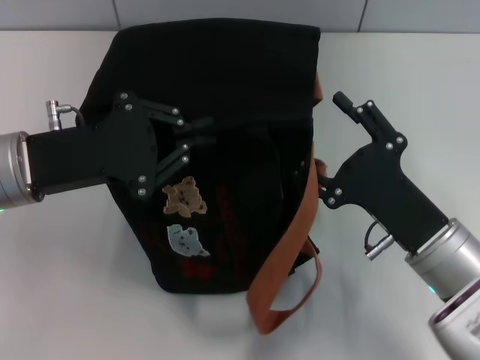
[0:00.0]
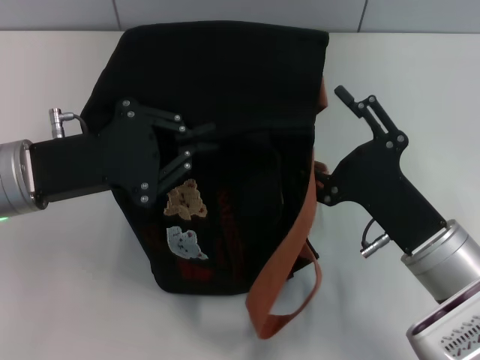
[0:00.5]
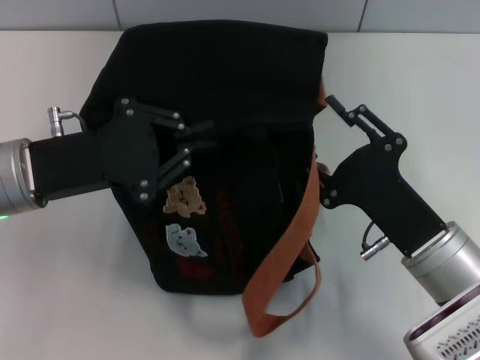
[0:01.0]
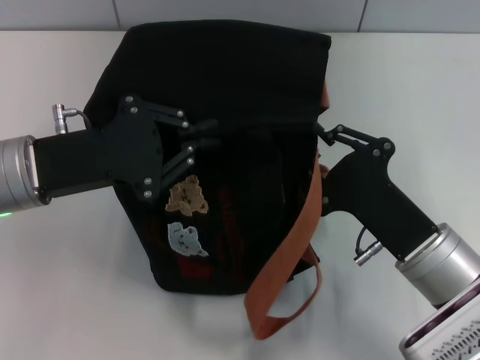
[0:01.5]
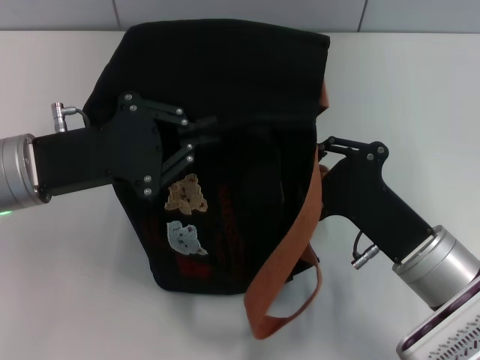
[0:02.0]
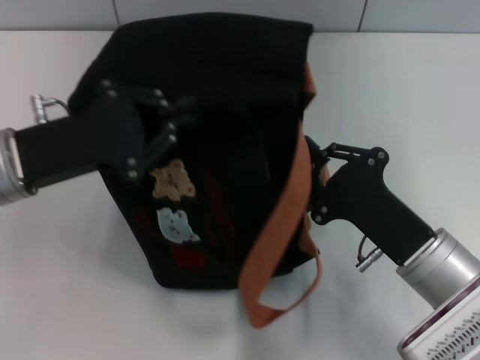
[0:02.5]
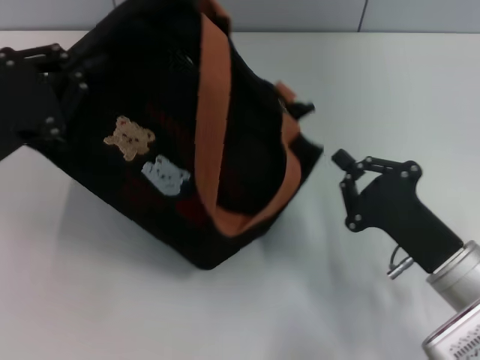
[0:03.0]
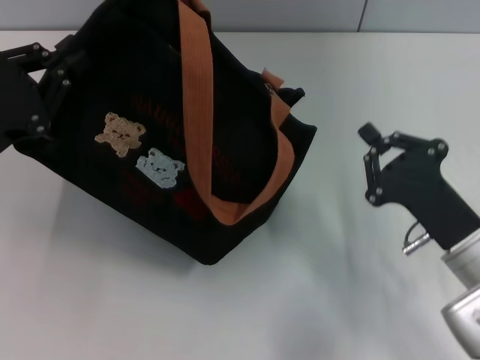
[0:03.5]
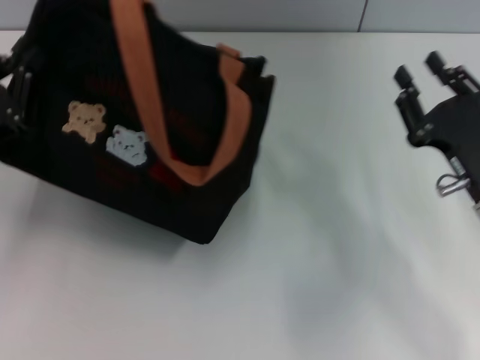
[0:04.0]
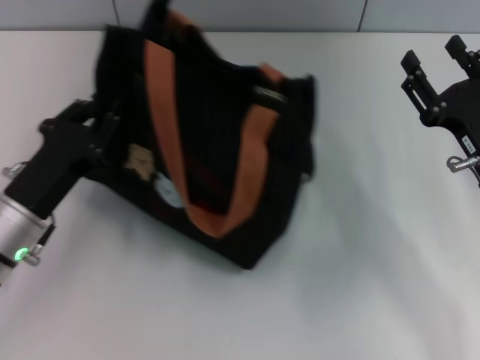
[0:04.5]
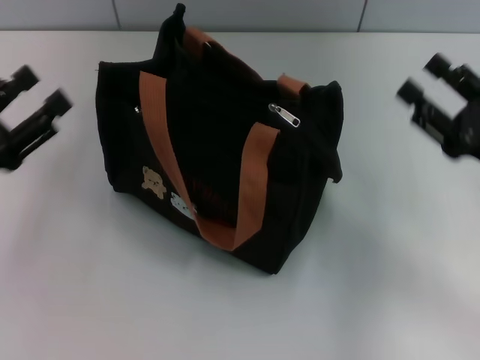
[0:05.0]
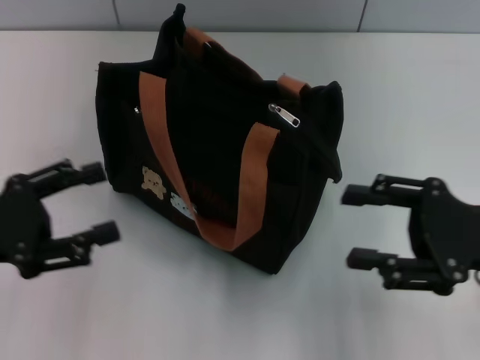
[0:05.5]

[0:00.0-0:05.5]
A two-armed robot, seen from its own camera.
Step, 0:00.0 to 0:02.5: Pull open the zipper with your right hand.
Step, 0:03.0 to 0:04.5: Grab the bag with your left hand.
0:00.0 to 0:02.0: The right gripper closes up.
0:02.0 to 0:03.5: The left gripper shifts some 5 cm to the left, while the right gripper shifts by roughly 5 cm.
0:03.5 to 0:05.5: The left gripper reaches some 5 cm to the right, then returns, and opens its fingers. Meanwhile the right gripper goes roughly 5 cm upward, and opens.

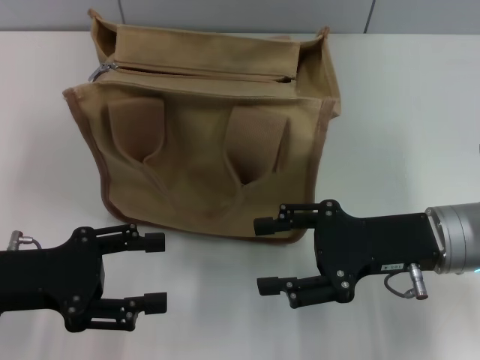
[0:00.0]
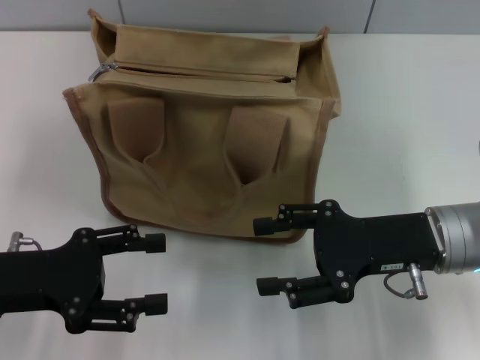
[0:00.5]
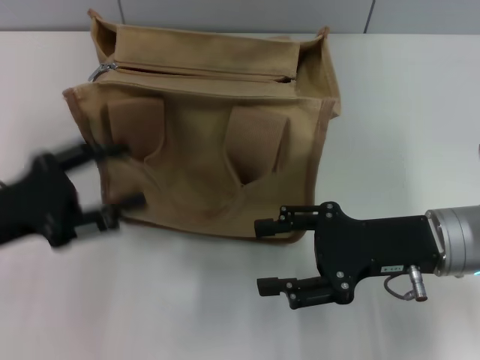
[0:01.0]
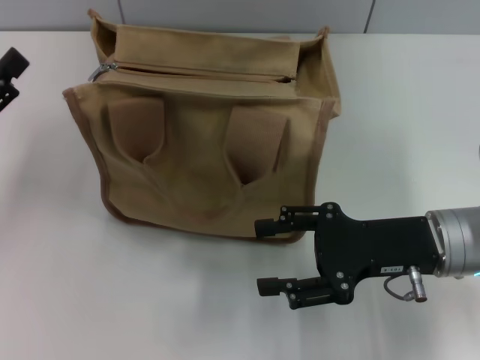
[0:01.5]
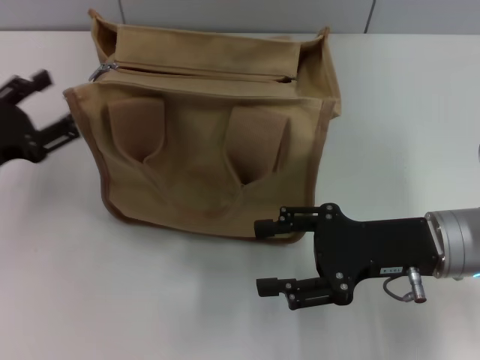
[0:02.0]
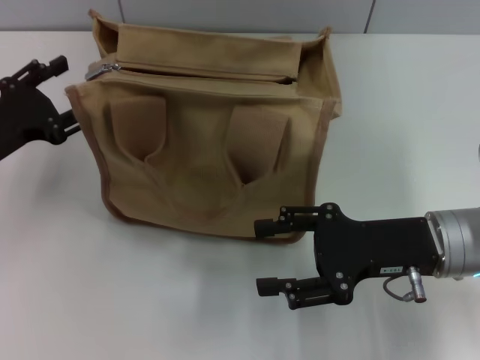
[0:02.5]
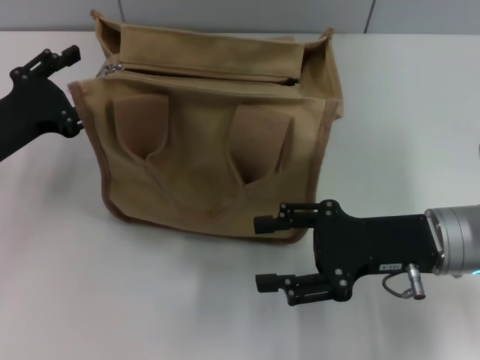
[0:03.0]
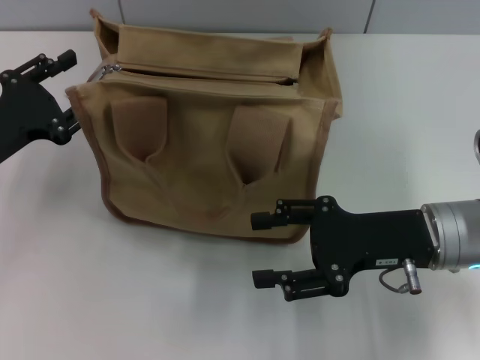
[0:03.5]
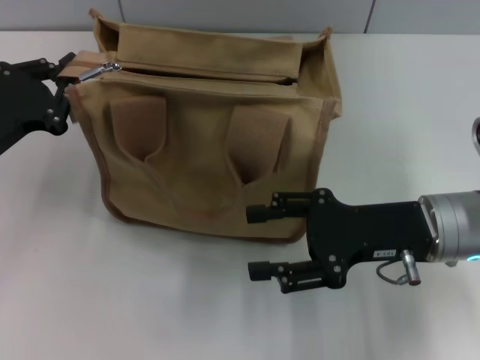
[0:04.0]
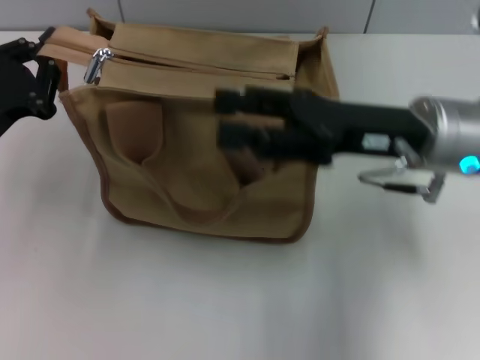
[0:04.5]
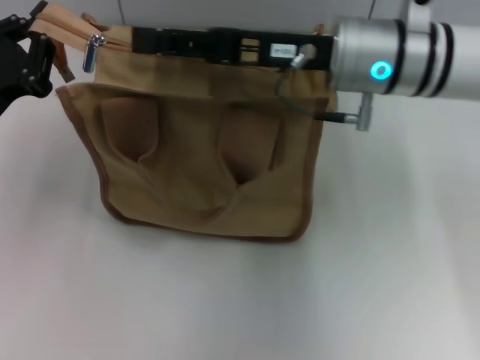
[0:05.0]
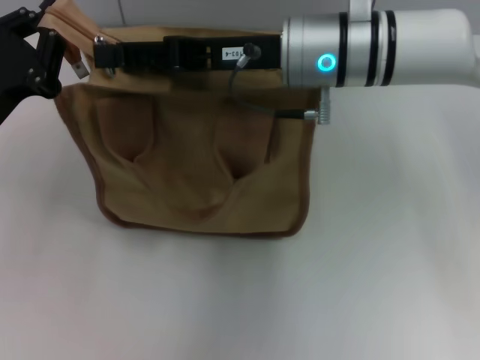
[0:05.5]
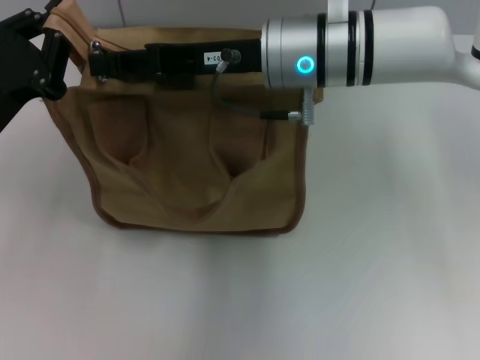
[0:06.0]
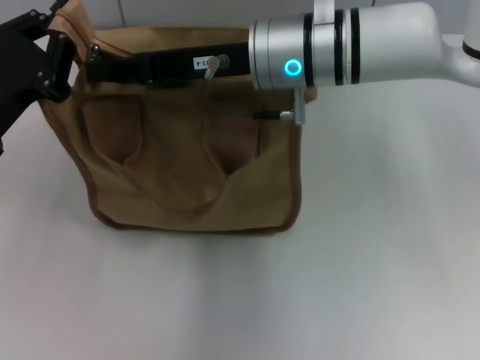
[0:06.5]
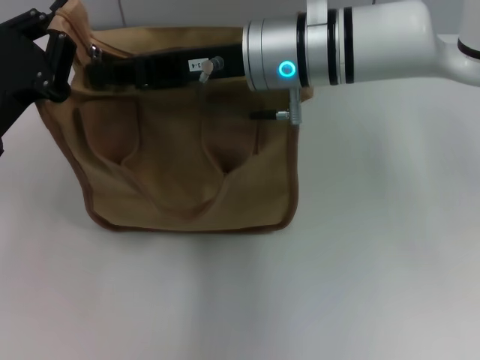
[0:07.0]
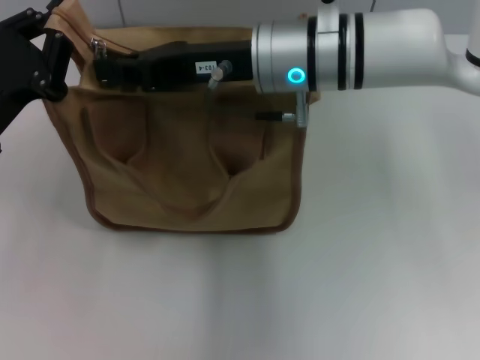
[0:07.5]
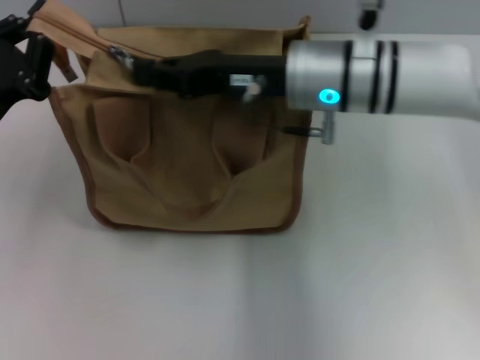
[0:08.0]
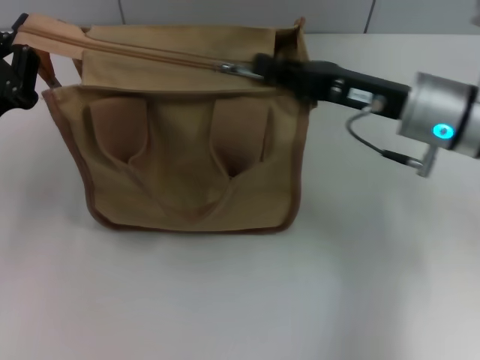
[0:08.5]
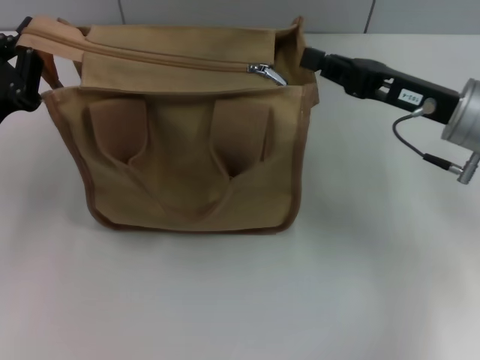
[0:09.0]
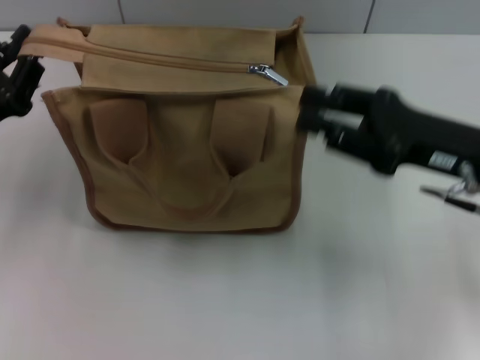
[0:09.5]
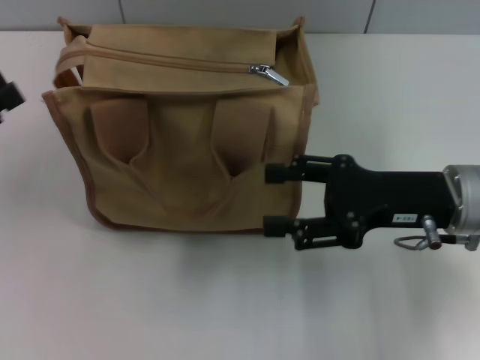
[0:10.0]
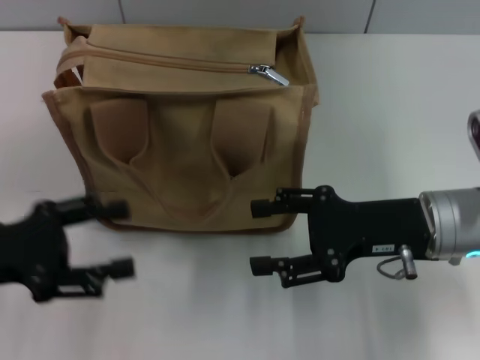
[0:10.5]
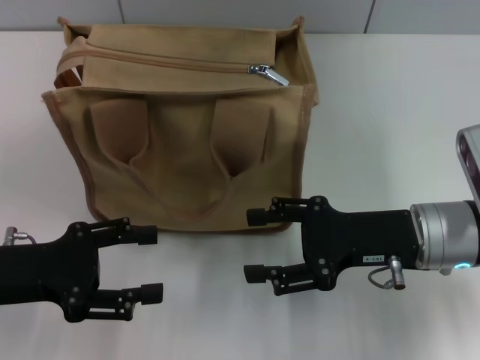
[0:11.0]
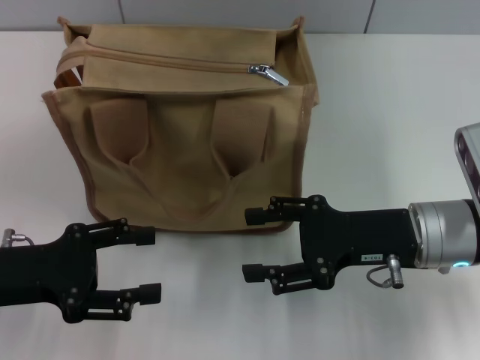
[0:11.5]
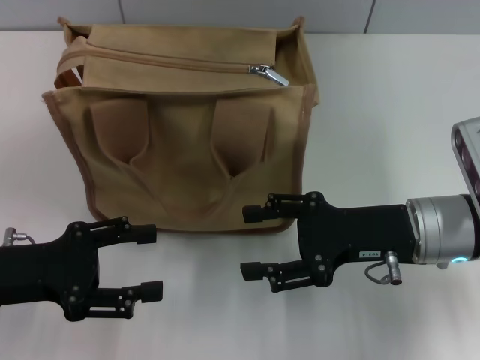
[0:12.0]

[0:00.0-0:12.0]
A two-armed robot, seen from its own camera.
Step, 0:00.0 to 0:08.5: Pull up the zipper with your right hand.
Step, 0:09.0 to 0:09.5: Grab the zipper with your left hand.
0:00.0 to 0:02.0: The left gripper shifts roughly 5 cm forward.
0:02.0 to 0:04.0: The left gripper closes.
0:04.0 to 0:06.0: The left gripper closes. The right gripper heads to the left, forward and upward, covering approximately 20 cm.
0:06.0 to 0:08.0: The right gripper closes.
0:08.0 to 0:10.0: The left gripper is displaced to the left by approximately 10 cm, and opens its fingers. Meanwhile the right gripper moves to the right and backward, roughly 15 cm, and opens up.
0:10.0 to 0:12.0: The left gripper is displaced to the right by roughly 10 cm, and opens up.

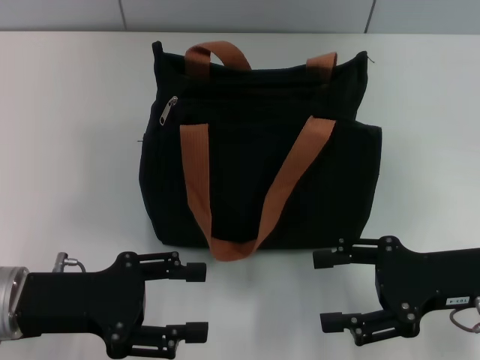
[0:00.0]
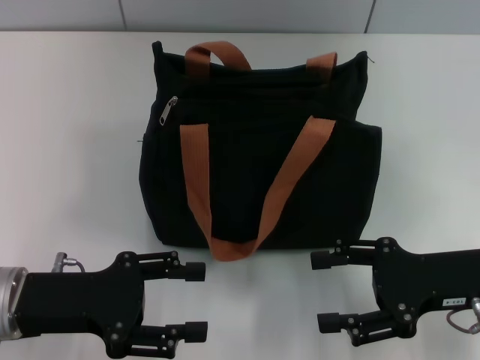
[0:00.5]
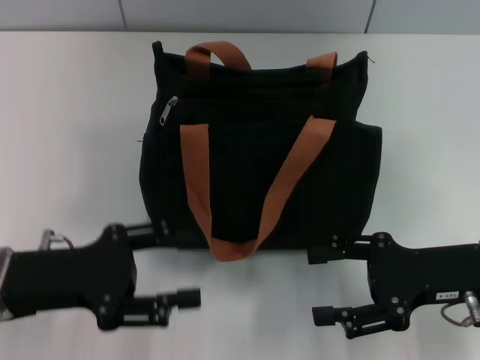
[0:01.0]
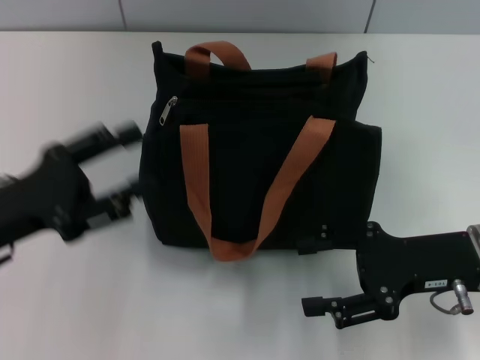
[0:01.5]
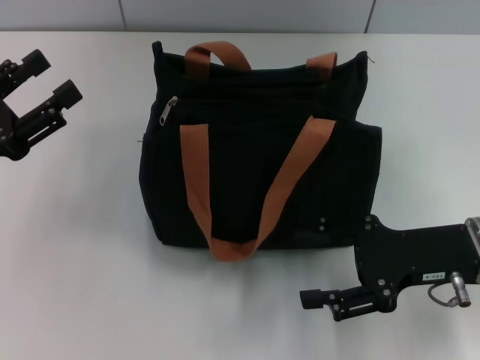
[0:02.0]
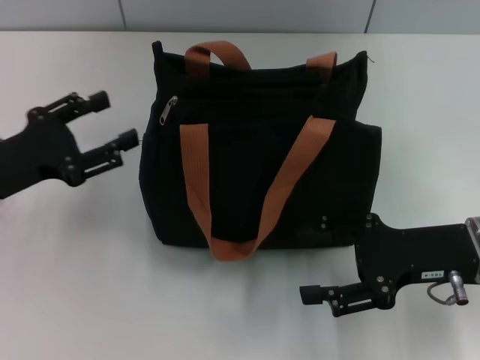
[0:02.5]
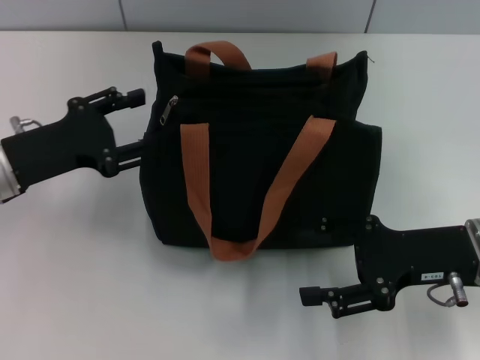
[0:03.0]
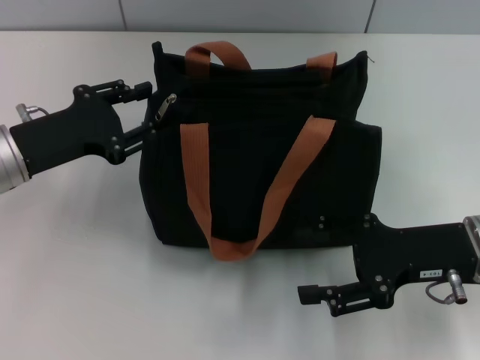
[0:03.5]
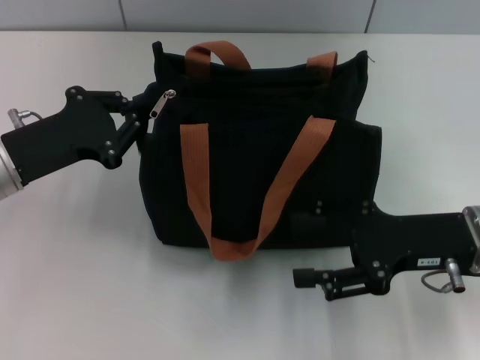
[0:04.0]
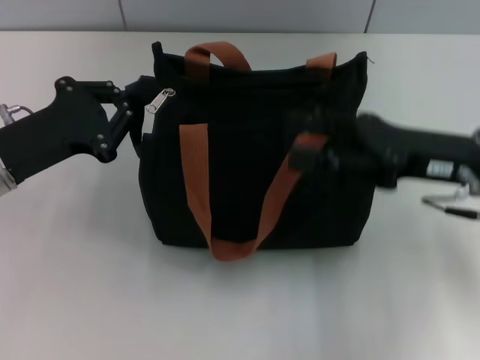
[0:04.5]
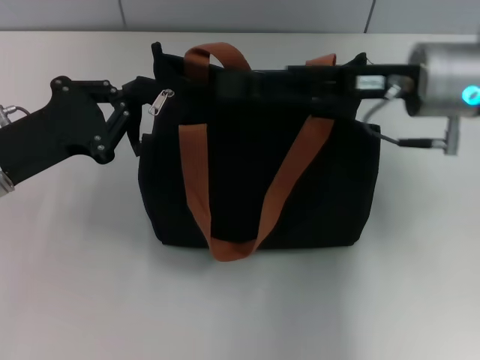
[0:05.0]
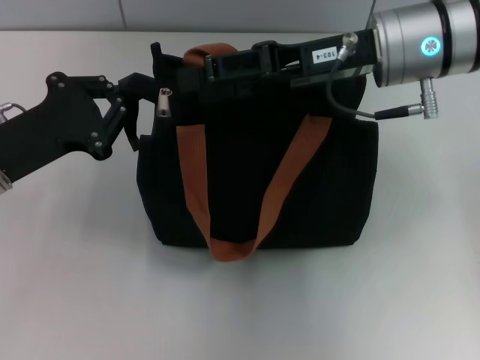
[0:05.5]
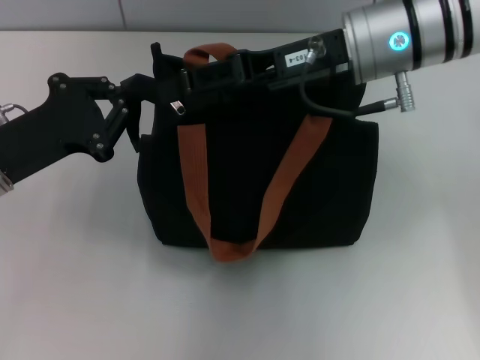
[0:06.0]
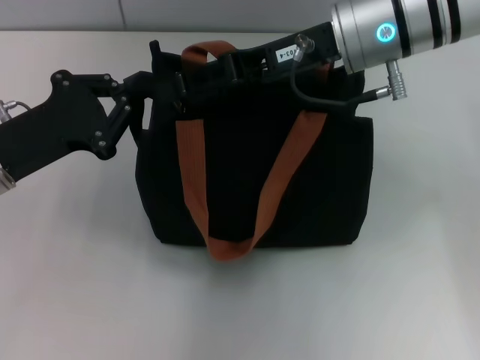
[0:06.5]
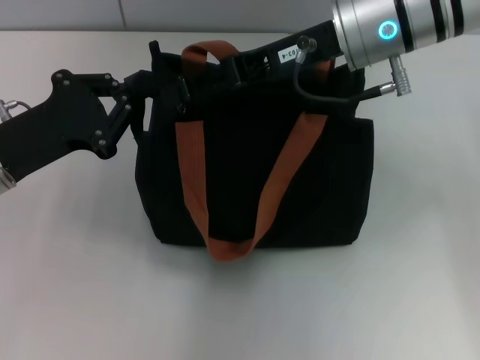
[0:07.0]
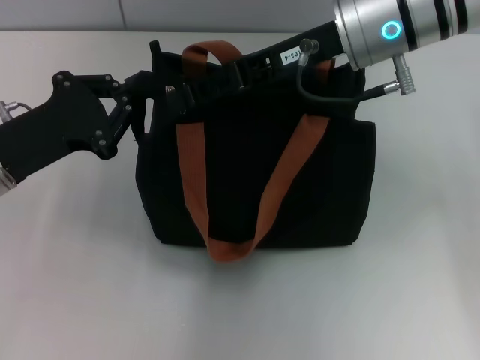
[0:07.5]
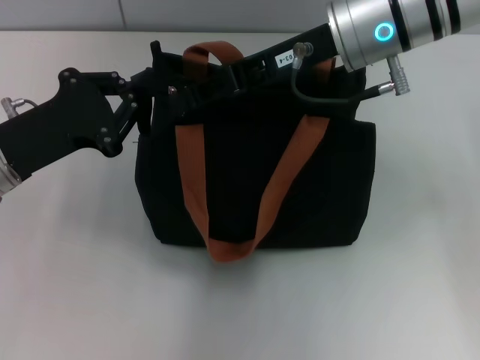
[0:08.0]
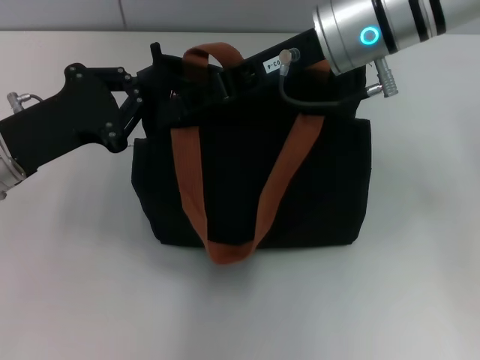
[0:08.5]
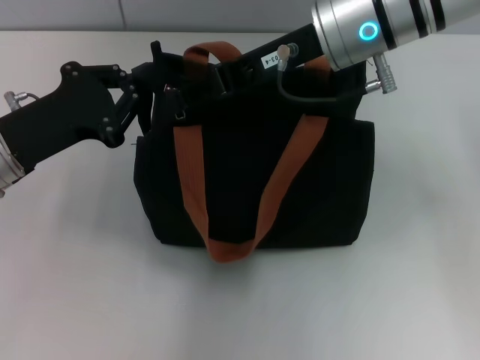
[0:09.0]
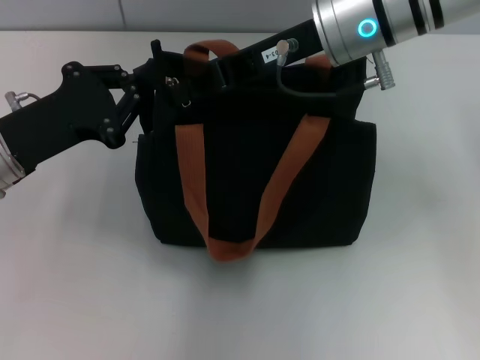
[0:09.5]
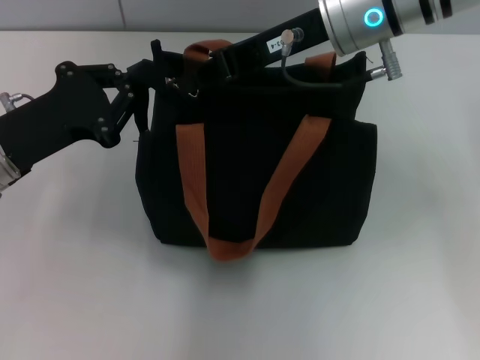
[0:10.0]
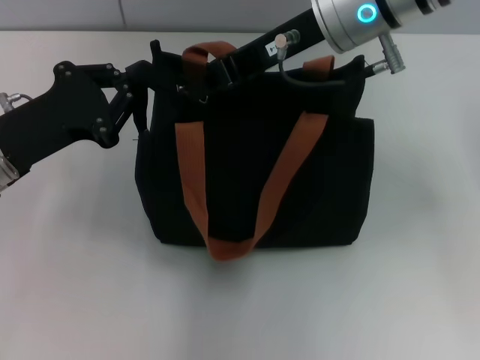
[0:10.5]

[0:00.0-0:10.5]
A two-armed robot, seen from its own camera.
0:00.0 to 0:02.0: The left gripper shifts some 5 cm to the left.
0:02.0 to 0:04.0: The left gripper is displaced to the right by roughly 5 cm, and closes up.
0:04.0 to 0:06.5: The right gripper travels upward, to the left and forward by some 20 cm.
0:06.5 to 0:08.5: The right gripper closes its fingers.
0:08.5 to 0:10.5: The right gripper closes its fingers.
